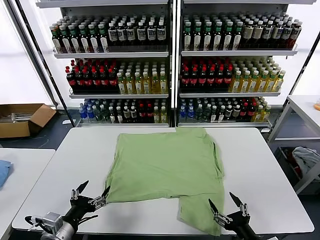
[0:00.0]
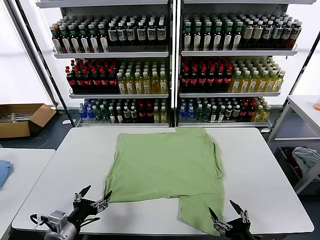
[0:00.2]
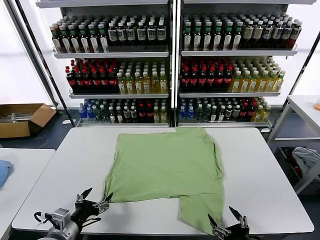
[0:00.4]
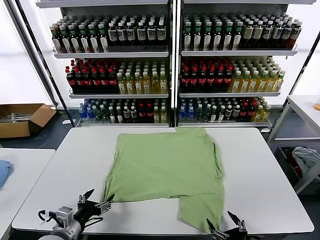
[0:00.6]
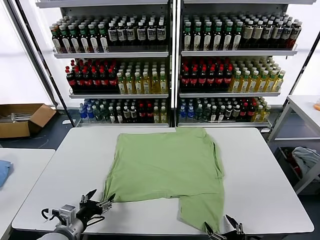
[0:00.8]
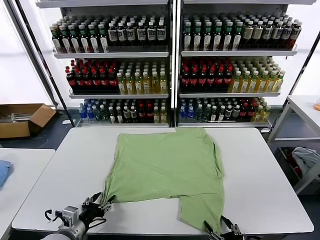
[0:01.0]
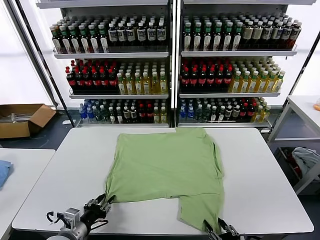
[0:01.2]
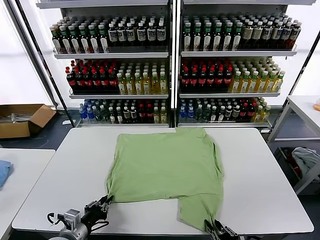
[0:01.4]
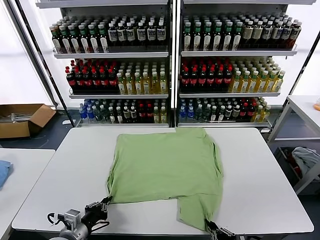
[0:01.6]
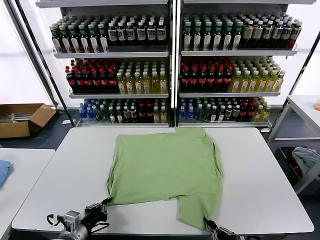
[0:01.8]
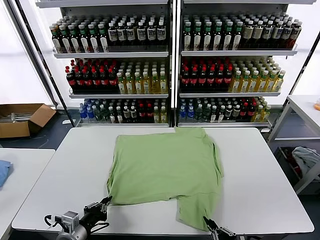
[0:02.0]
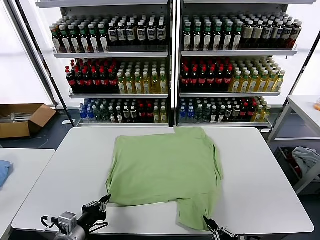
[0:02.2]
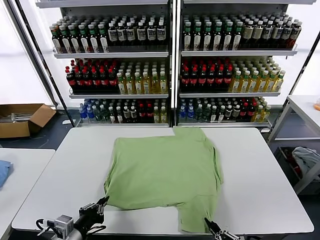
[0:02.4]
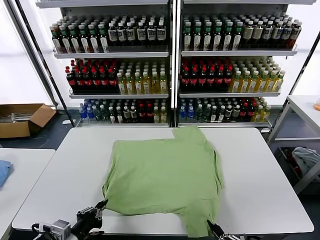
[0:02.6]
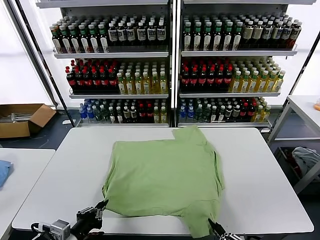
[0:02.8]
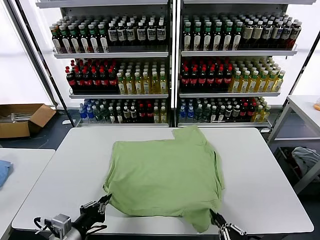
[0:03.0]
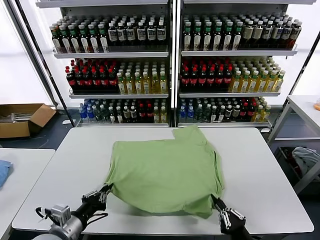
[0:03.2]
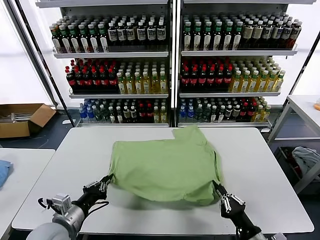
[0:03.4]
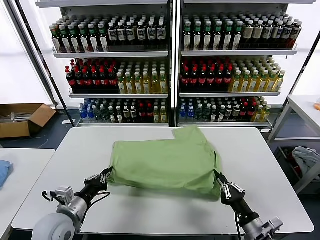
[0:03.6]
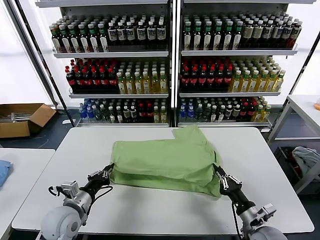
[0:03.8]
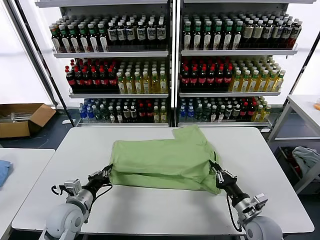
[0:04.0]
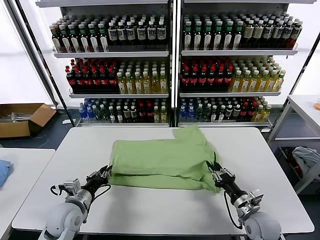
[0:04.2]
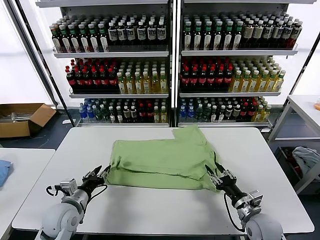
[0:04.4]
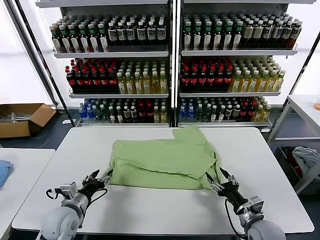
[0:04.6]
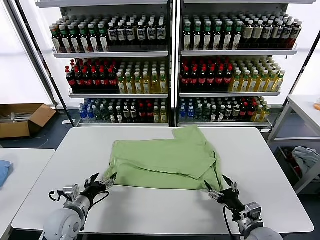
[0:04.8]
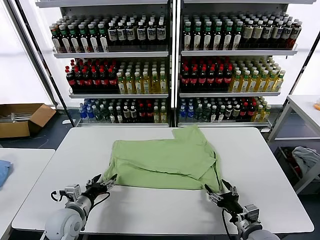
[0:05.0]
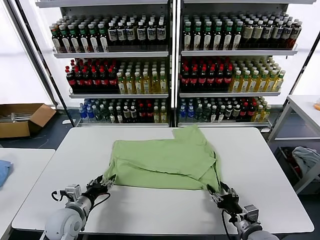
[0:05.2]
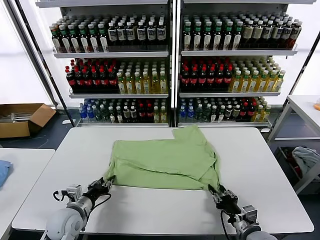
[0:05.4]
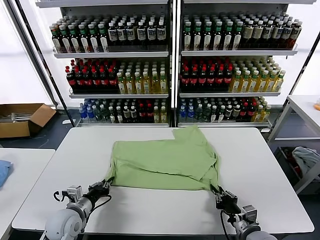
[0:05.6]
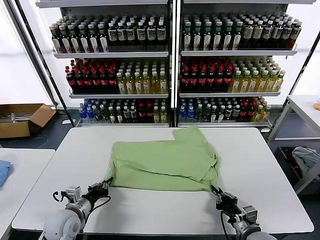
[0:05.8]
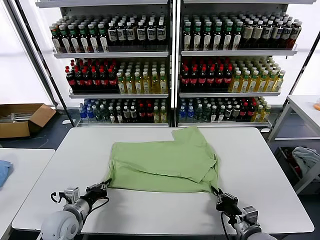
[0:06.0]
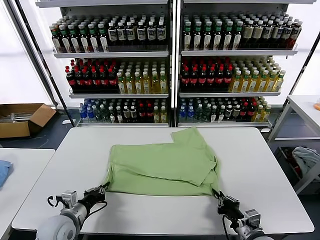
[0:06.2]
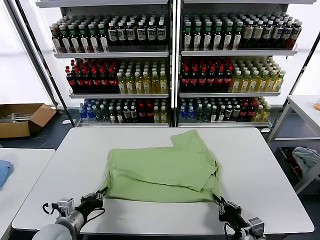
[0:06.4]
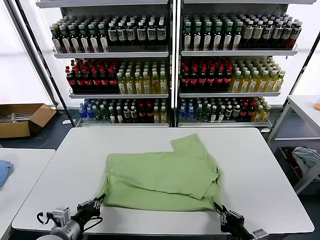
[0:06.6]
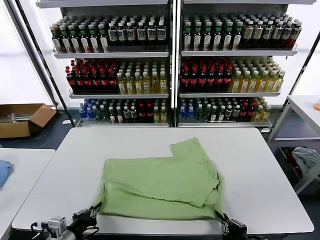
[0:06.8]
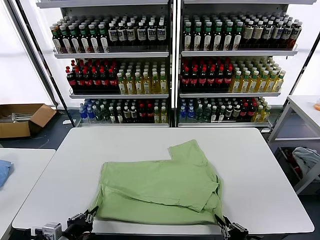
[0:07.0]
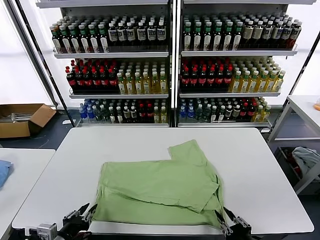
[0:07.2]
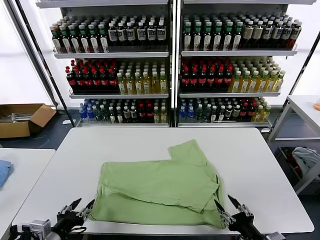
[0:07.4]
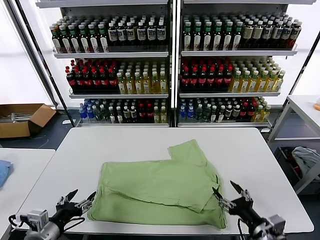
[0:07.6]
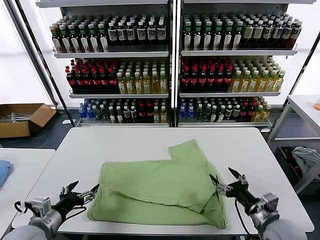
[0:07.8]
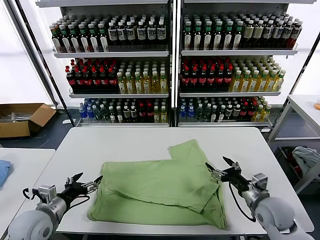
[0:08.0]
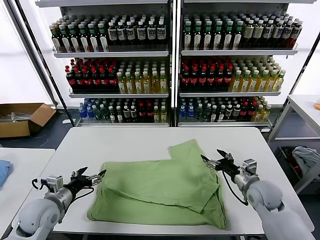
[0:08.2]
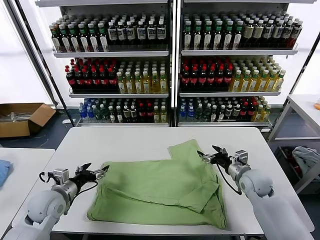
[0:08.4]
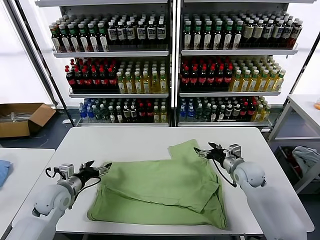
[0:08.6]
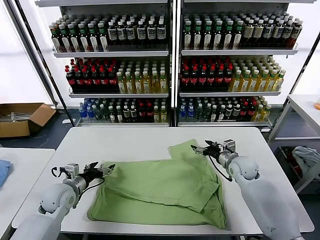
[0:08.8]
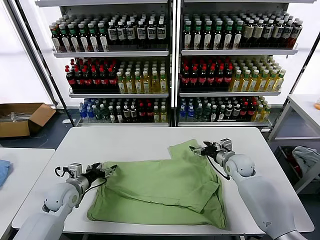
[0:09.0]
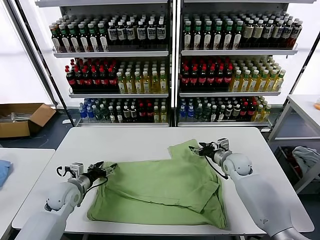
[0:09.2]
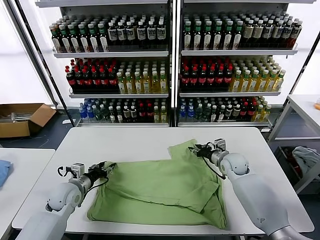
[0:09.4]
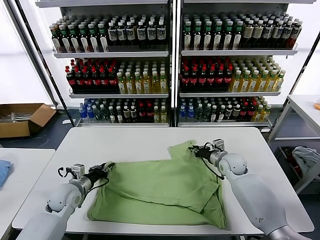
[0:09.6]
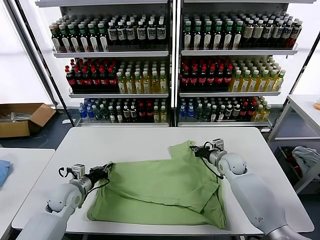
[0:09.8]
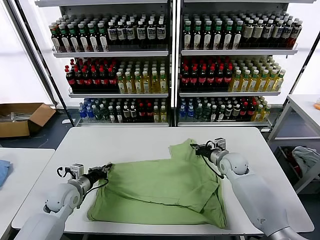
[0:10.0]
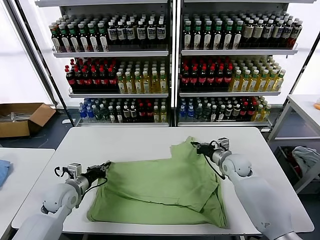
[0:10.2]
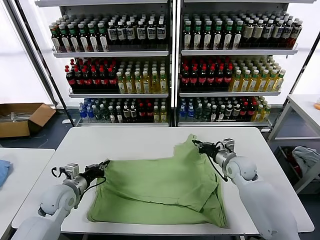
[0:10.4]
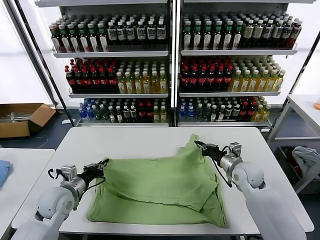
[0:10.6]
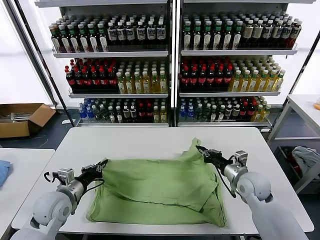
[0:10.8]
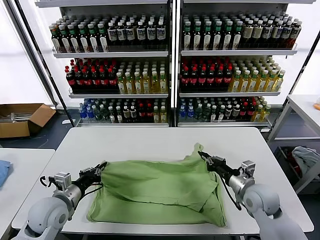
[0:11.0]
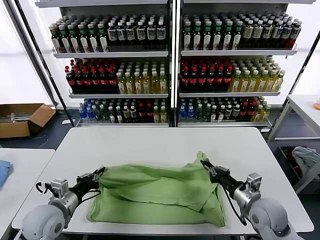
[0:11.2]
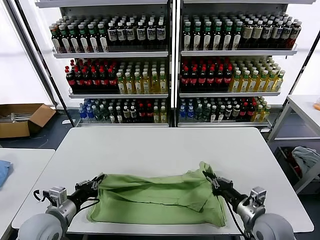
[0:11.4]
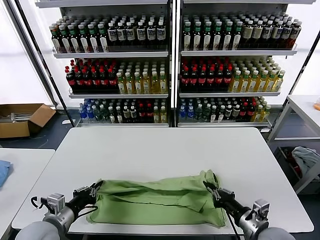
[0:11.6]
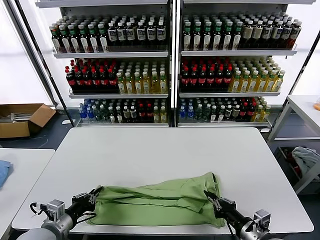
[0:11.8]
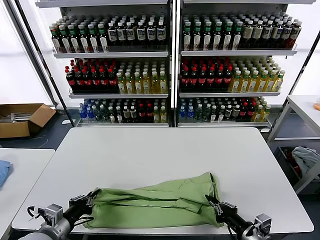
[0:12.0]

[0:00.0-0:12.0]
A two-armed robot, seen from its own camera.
Task of the whole recording: fold and organize the clothes.
Step, 0:00.0 to 0:01.6: use both grippers simultaneously to clamp the lower edge of the clothing fabric.
Step, 0:01.8 to 0:04.4: use both grippers to drag the lower edge of the fabric forward and fold it over the upper edge.
Step, 0:04.6 to 0:07.2: Drag the clothes downward with both gripper.
Step, 0:07.4 to 0:09.8: use both grippers simultaneously to clamp the upper edge of the clothing fabric.
0:01.6 to 0:03.0: The left gripper is displaced upward by some 5 cm.
0:03.0 to 0:04.4: Both grippers travel together forward, about 15 cm. The left gripper opens its fingers; the right gripper opens.
0:04.4 to 0:06.0: The left gripper closes its fingers. The right gripper ends up some 5 cm from where it was, and closes.
0:06.0 to 0:07.6: The left gripper moves backward and upward, about 10 cm, and opens up, while the right gripper travels upward by some 5 cm, travels backward and back again, approximately 10 cm each way, and opens its fingers.
0:07.6 to 0:09.0: The left gripper moves forward, roughly 20 cm. The right gripper travels forward by roughly 30 cm.
0:09.0 to 0:10.4: The left gripper closes. Meanwhile the right gripper closes its fingers.
0:10.4 to 0:12.0: The left gripper moves backward, some 15 cm. The right gripper shifts approximately 25 cm backward.

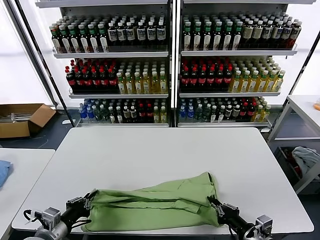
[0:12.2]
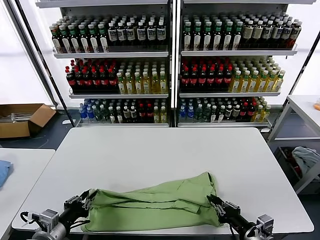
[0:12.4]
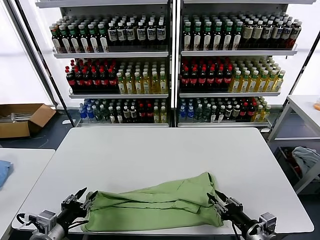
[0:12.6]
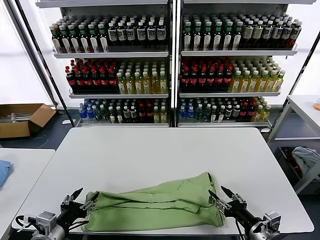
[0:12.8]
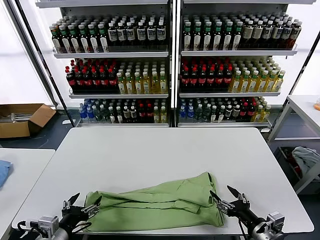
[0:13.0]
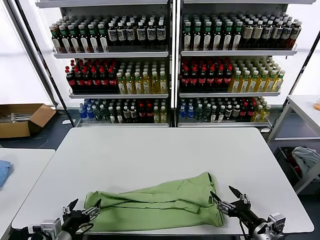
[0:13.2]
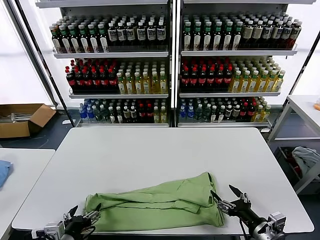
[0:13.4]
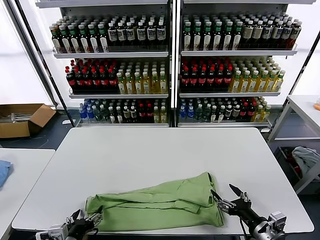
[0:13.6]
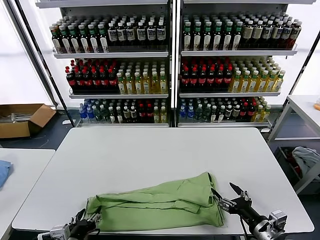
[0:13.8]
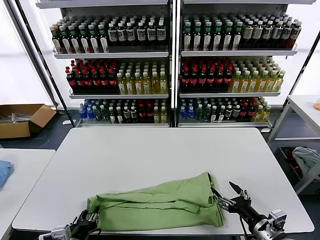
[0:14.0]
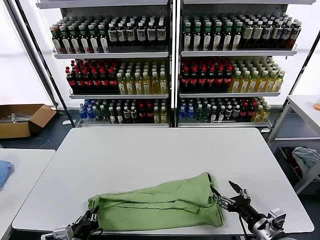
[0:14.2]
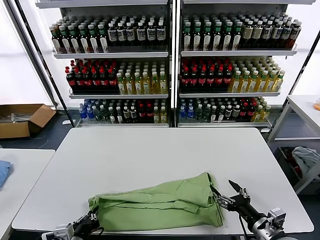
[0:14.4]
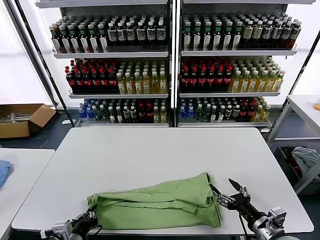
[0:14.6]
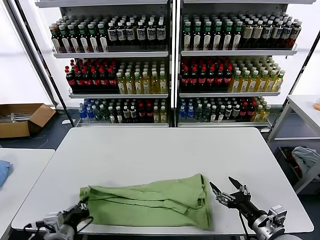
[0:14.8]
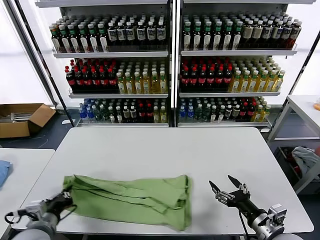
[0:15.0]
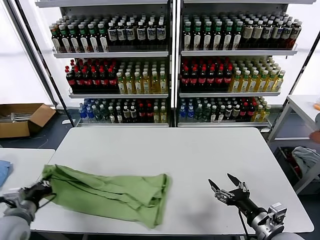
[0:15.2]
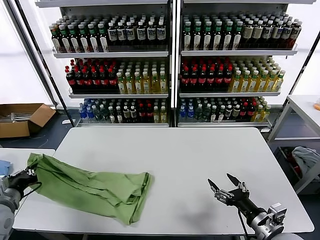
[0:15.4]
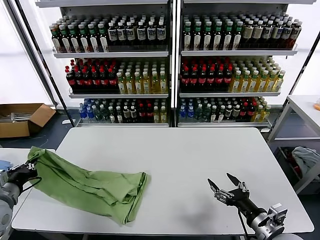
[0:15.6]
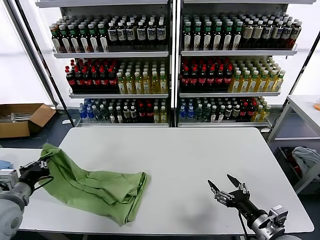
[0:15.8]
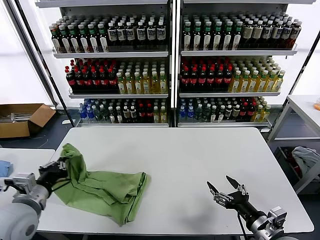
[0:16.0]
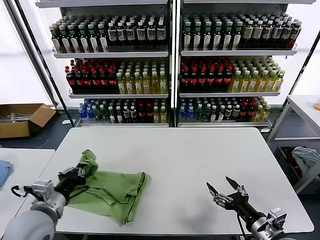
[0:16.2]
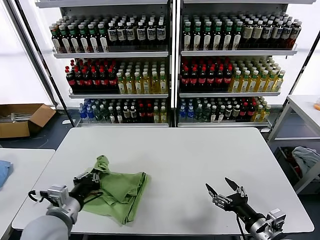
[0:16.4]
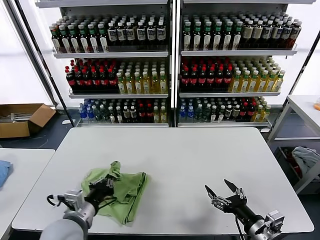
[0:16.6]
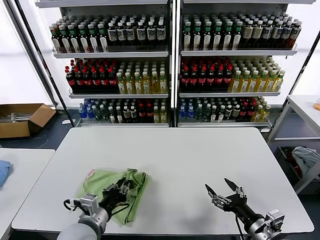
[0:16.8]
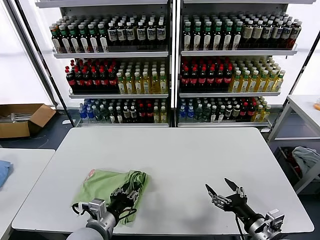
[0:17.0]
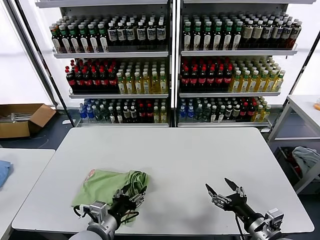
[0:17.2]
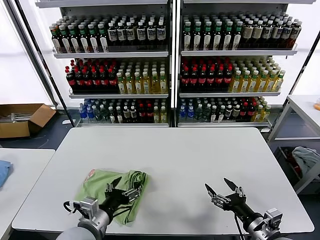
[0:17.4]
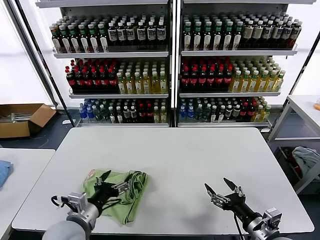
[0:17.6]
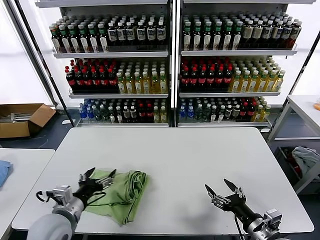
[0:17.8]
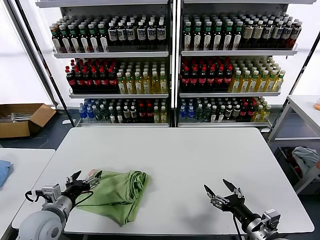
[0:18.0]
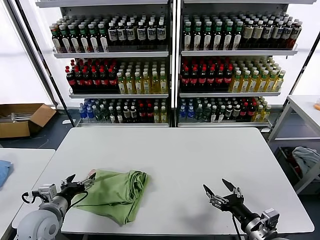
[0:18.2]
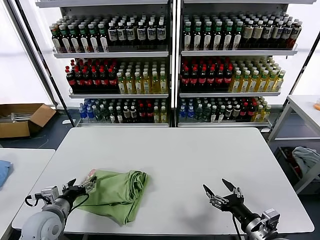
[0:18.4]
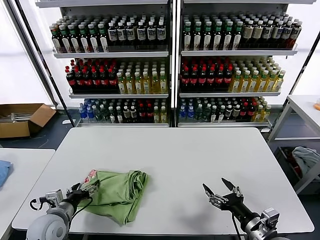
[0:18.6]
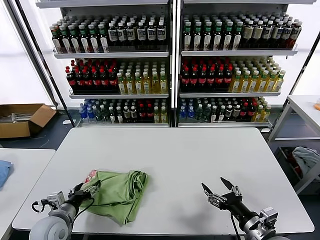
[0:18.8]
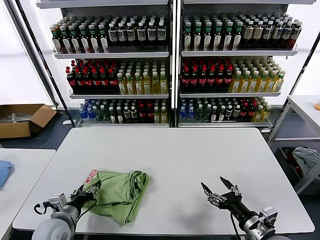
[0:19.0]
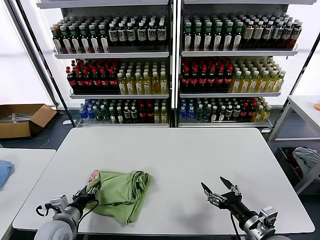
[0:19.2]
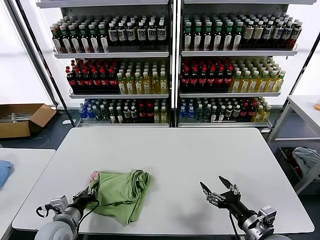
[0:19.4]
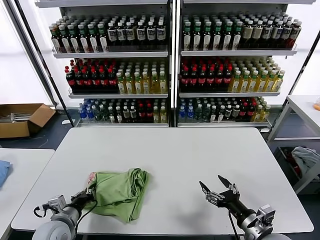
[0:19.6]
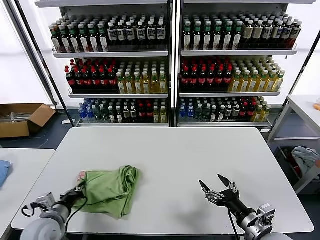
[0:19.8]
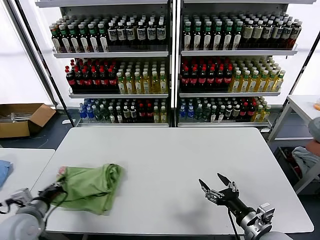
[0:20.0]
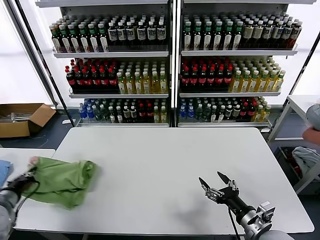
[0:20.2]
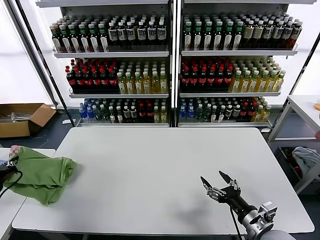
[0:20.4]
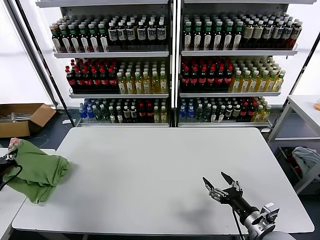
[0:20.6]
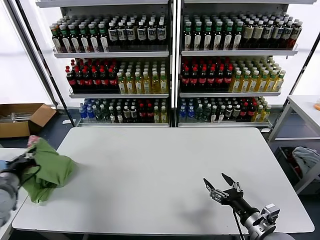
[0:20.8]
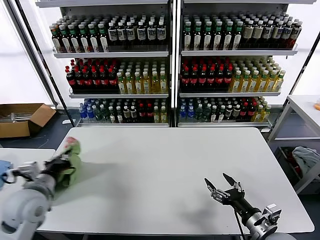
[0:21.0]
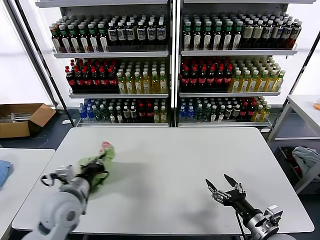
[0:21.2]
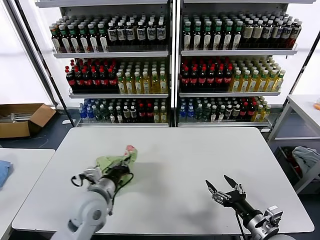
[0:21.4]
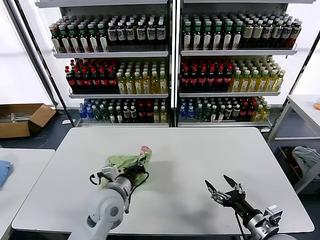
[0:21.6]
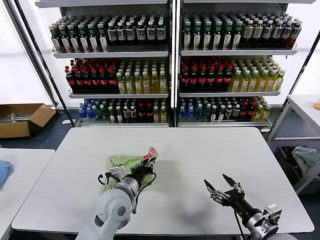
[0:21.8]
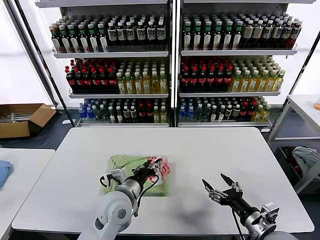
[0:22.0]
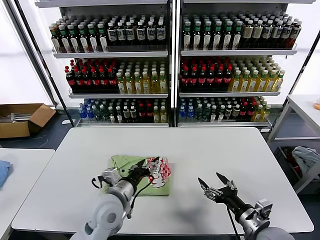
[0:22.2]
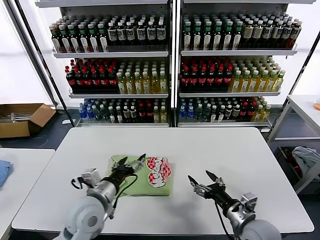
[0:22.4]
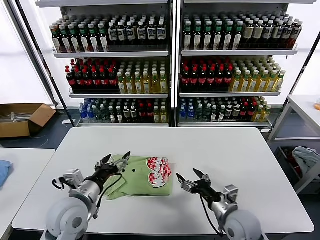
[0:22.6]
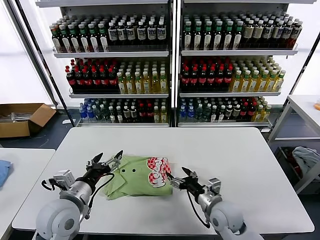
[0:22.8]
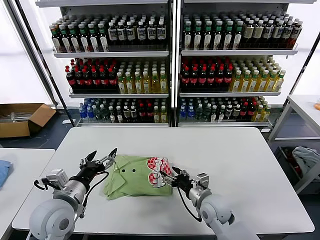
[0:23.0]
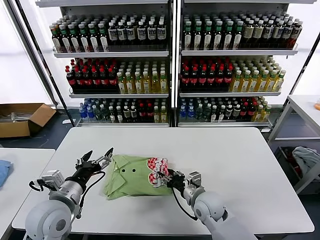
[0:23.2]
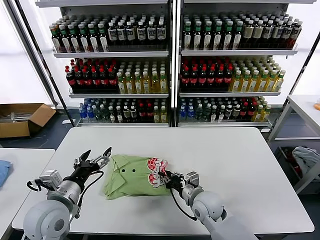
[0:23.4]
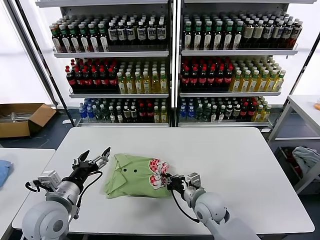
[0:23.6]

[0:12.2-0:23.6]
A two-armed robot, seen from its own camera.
Task of the whole recording: fold and organize the clothes.
Step, 0:12.8 to 0:14.4: use the left gripper to clamp the left edge of the fabric.
Step, 0:14.6 to 0:17.0: use the left gripper to drag the left edge of the fabric to the left and folds it over the right edge.
Step, 0:17.2 to 0:22.0: Flip the folded clothes over with left gripper.
0:12.2 to 0:13.6: The right gripper opens its fingers. Meanwhile the left gripper travels to the right by roughly 5 cm, and opens up.
0:13.6 to 0:15.0: The left gripper travels to the left and forward by approximately 10 cm, and closes.
0:15.0 to 0:16.4: The left gripper shifts roughly 10 cm to the right and upward.
0:16.4 to 0:17.8: The left gripper goes to the right and returns, some 10 cm each way, and opens.
0:17.8 to 0:19.4: The left gripper is displaced downward by approximately 10 cm, and closes its fingers.
0:19.4 to 0:20.8: The left gripper moves upward and to the left, roughly 20 cm.
0:20.8 to 0:22.2: The left gripper travels to the right by roughly 30 cm, and opens its fingers.
0:22.2 to 0:23.6: The right gripper heads to the left and forward, covering roughly 20 cm, and closes; the left gripper travels to the left by about 15 cm.
